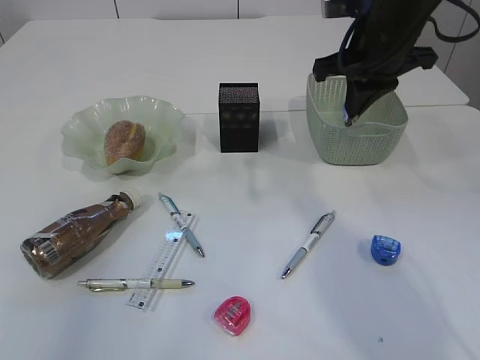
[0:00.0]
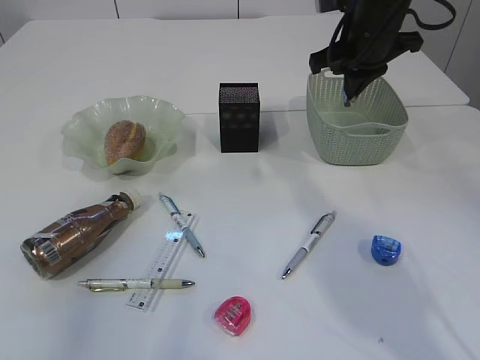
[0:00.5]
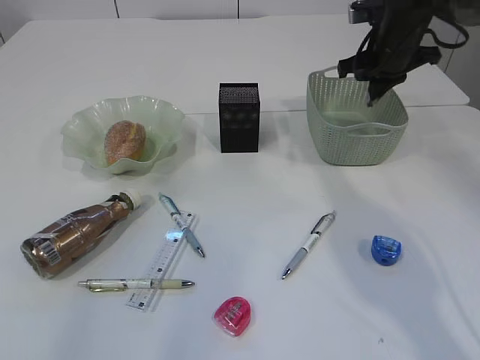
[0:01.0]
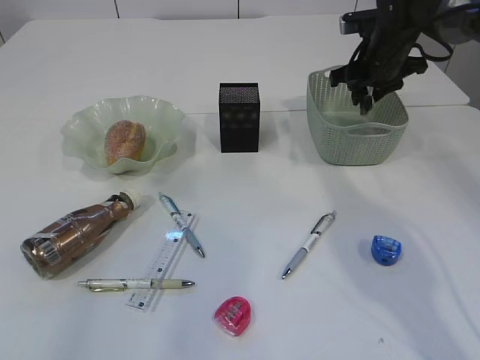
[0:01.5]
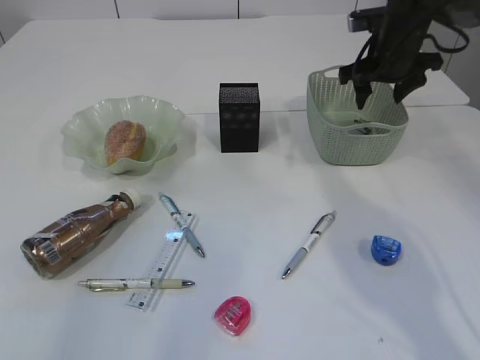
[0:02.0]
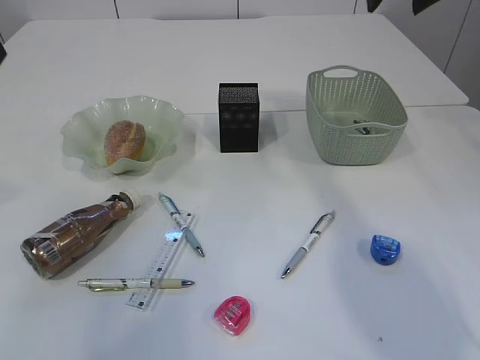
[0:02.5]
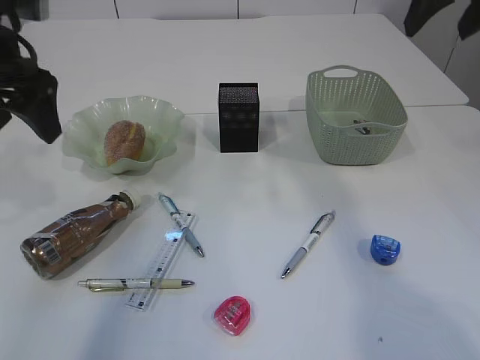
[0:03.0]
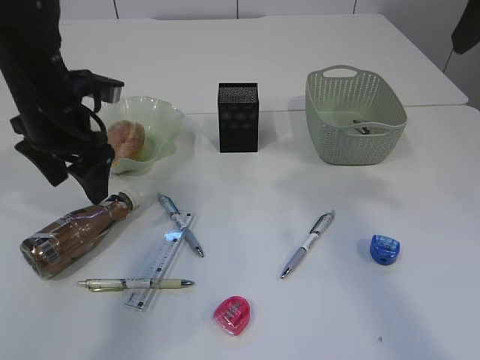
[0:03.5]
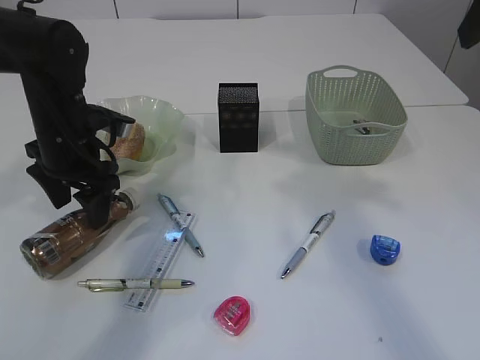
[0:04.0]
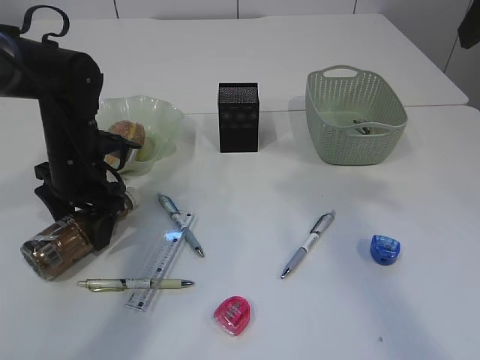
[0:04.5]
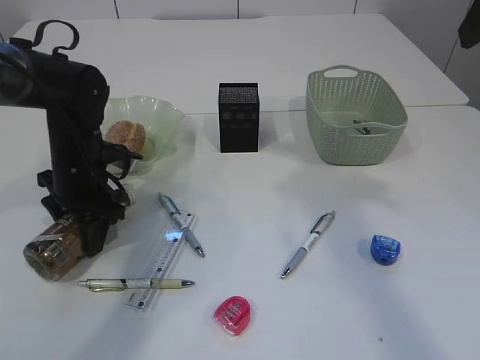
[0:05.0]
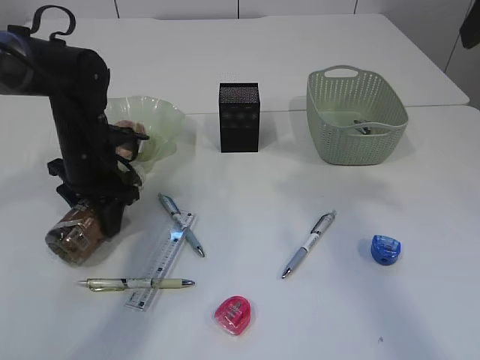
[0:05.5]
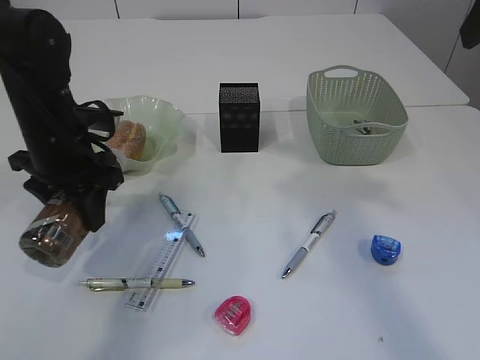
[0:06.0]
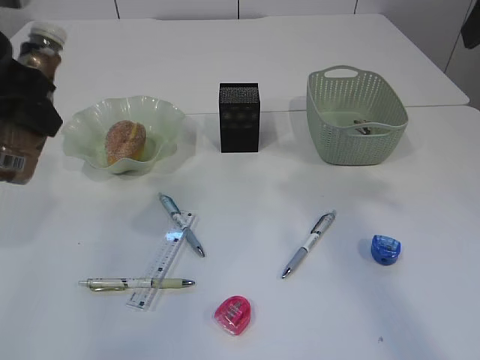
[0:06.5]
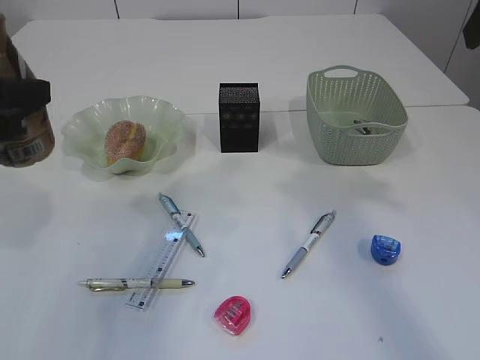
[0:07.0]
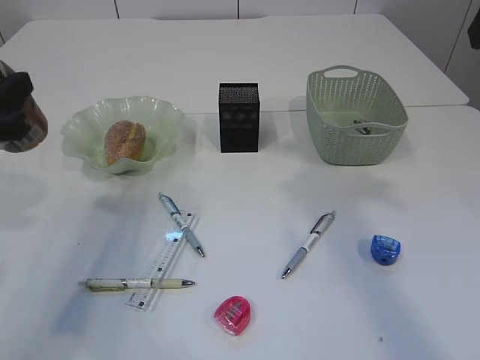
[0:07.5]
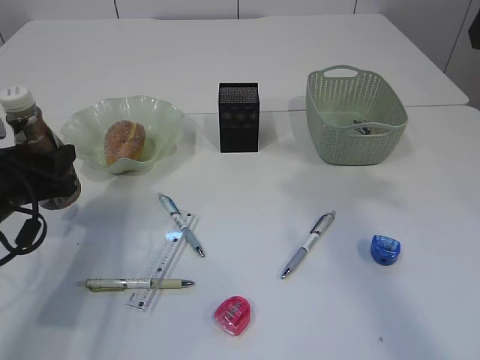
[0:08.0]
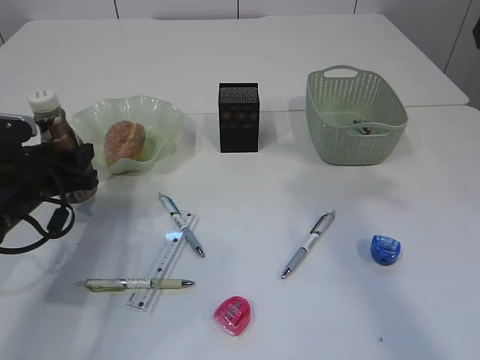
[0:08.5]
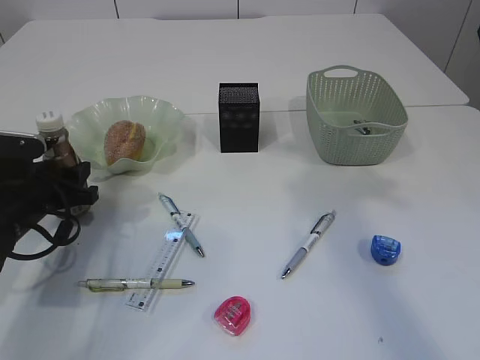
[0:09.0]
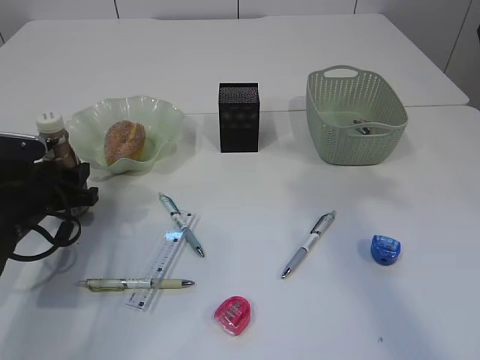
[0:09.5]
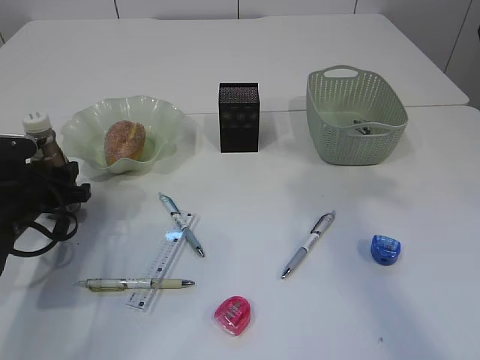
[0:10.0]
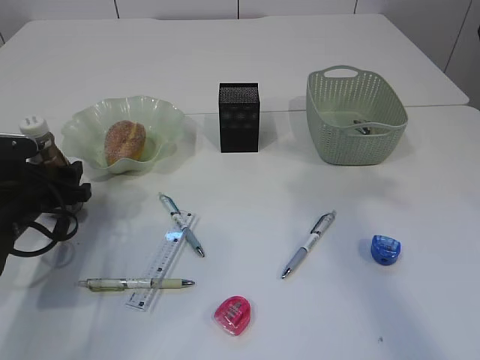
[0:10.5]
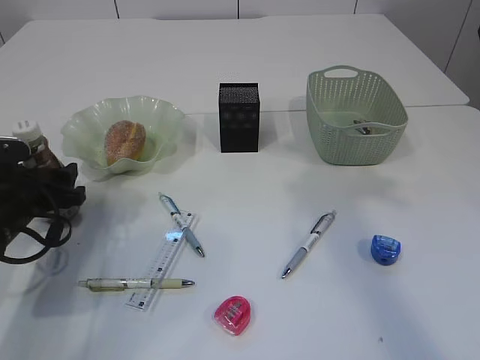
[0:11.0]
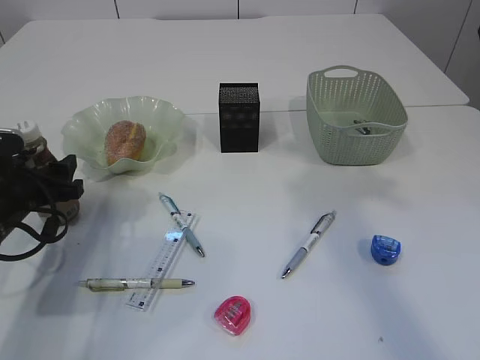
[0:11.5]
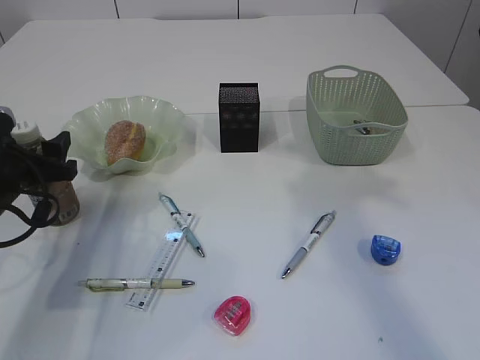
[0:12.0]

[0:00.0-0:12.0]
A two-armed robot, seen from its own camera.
Step, 0:00.0 to 0:02.0: Place the waste paper in the basket.
Step, 0:02.5 to 0:06.0: Pick up the bottle with the left arm.
0:00.0 to 0:02.0: The right gripper is displaced forward, downward and to the right by some 15 cm, and opens.
0:02.0 to 0:04.0: The left gripper moves downward and forward, roughly 35 cm, and opens up; the right gripper travels backward and upward by roughly 30 cm.
0:04.0 to 0:06.0: The left gripper closes its fingers.
0:06.0 to 0:08.0: The left gripper travels backward and to the left by roughly 10 cm, and reaches approximately 15 cm upward, then returns.
0:08.0 to 0:10.0: The left gripper goes about 5 cm downward.
0:10.0 to 0:12.0: The left gripper opens.

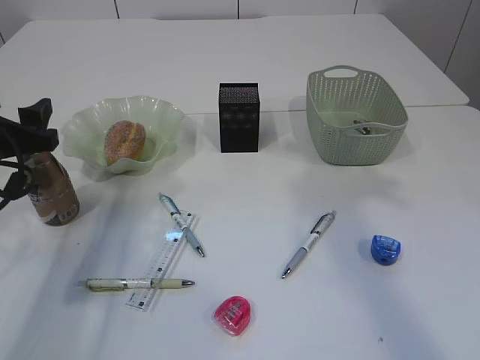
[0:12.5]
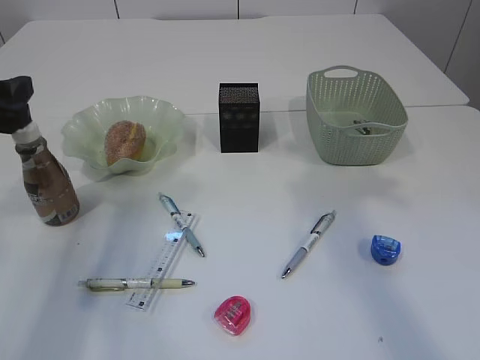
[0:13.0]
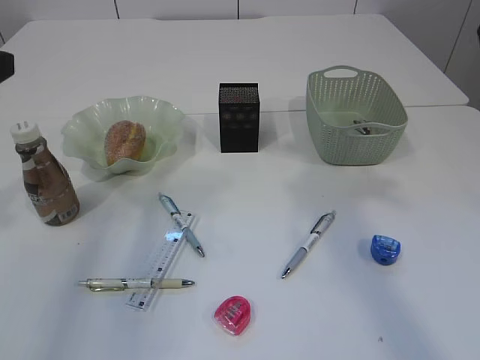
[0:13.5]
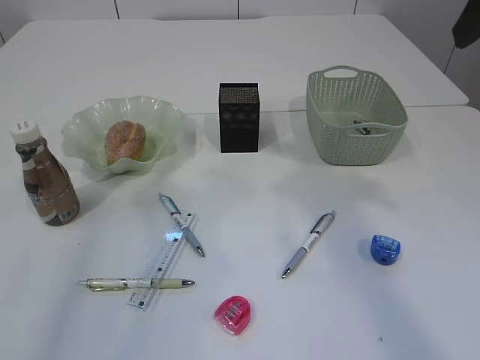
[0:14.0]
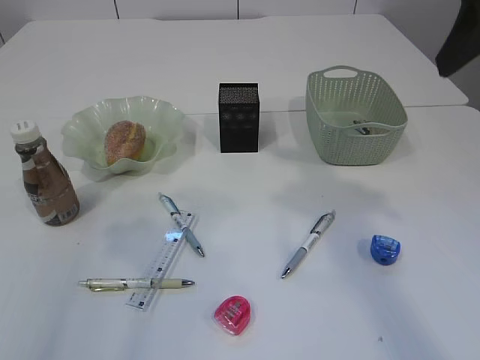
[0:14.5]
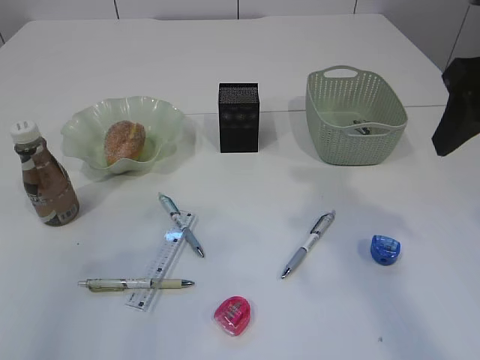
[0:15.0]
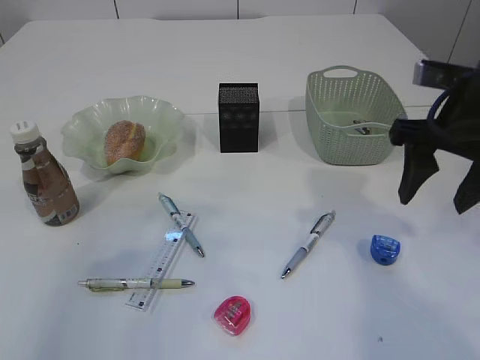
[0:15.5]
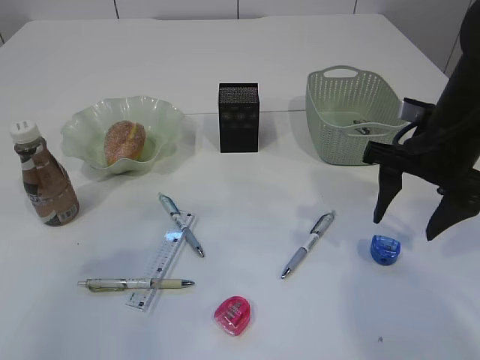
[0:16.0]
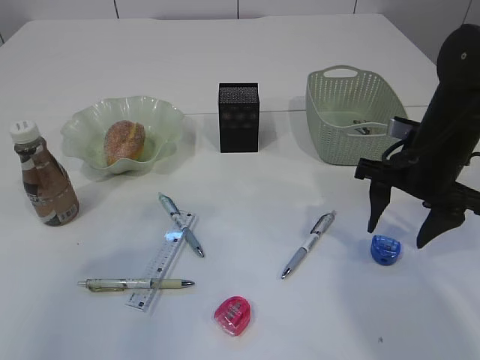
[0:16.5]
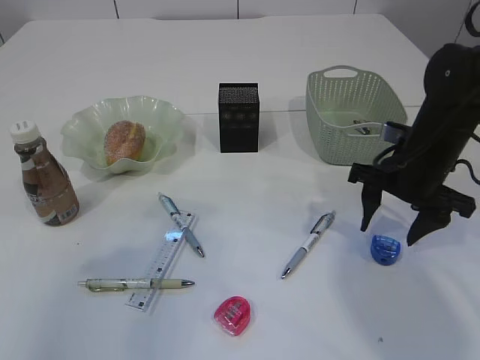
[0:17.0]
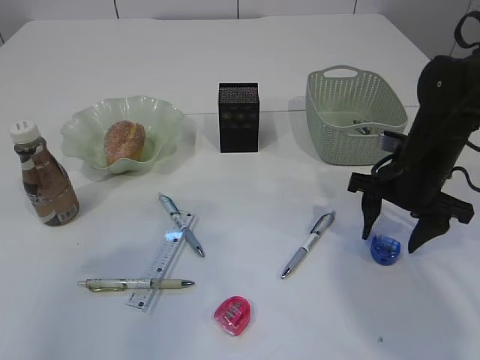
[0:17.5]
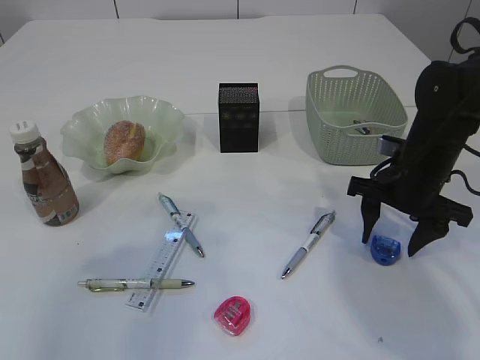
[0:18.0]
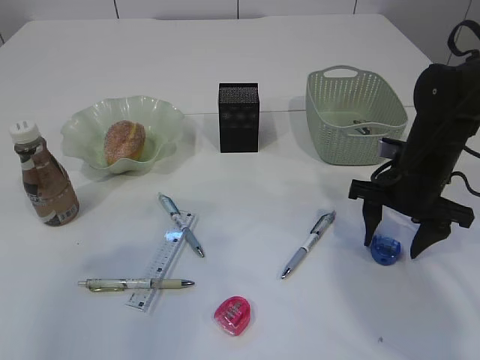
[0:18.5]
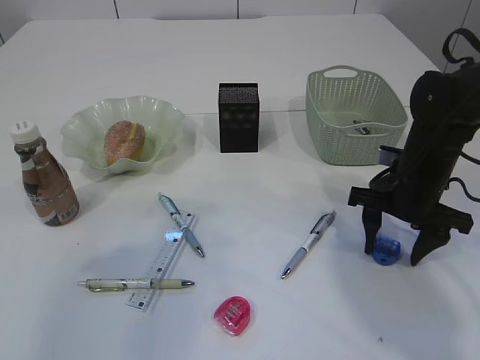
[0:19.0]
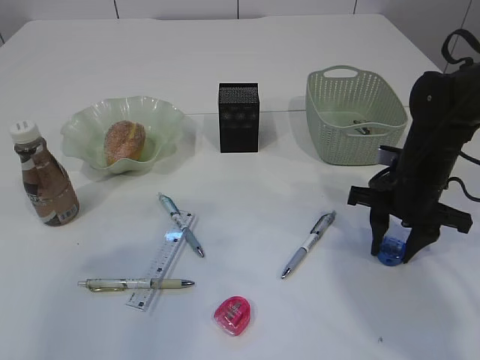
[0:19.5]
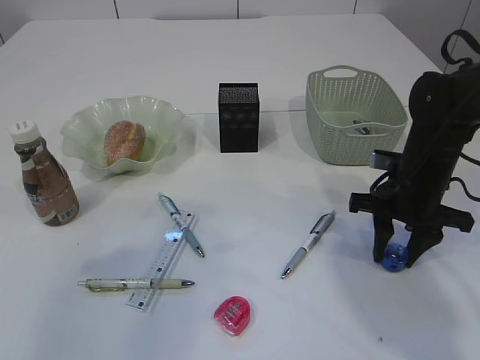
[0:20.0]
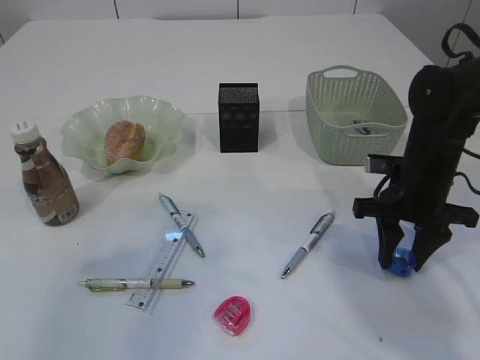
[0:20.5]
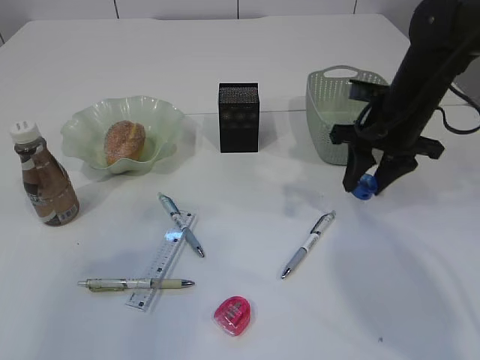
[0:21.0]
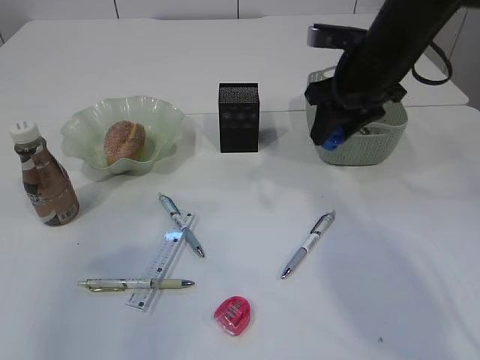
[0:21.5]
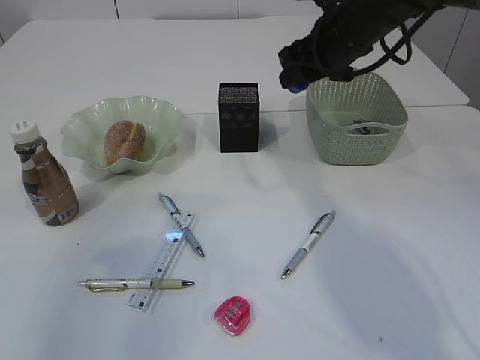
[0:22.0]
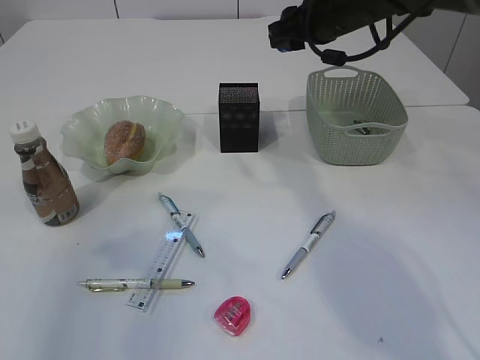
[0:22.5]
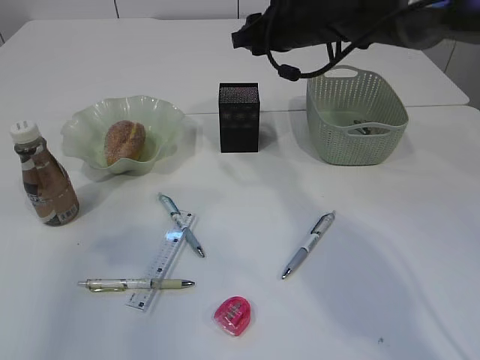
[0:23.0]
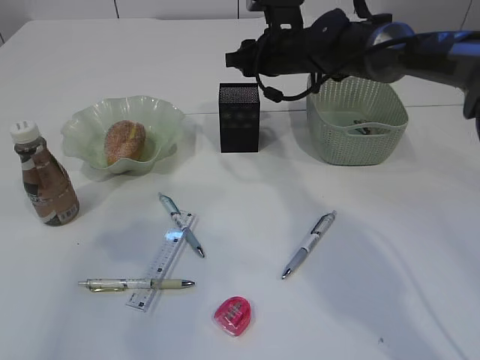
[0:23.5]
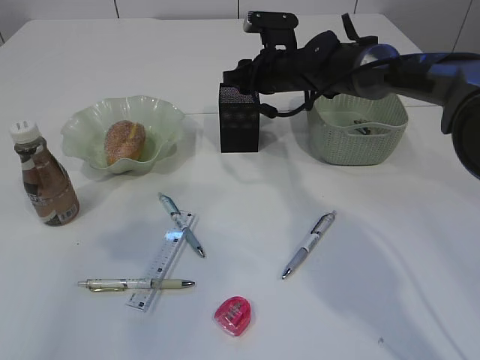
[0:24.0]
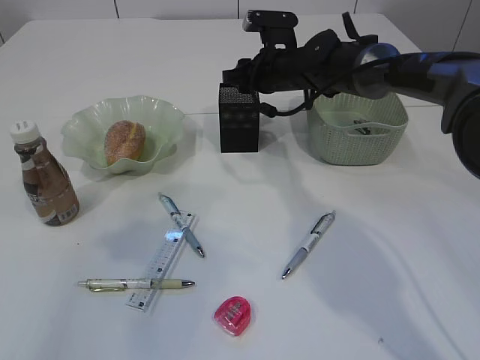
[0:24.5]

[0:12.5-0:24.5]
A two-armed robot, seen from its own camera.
Step, 0:13.5 to 0:20.5: Pick up the blue pencil sharpener.
0:12.5 to 0:14.5: The left gripper moves upward and backward, some 20 cm.
0:14.5 to 0:16.5: The right gripper travels downward by some 20 cm.
0:16.5 to 0:18.5: There are only small adjustments of the grippers.
0:18.5 to 0:20.5: The right gripper closes.
0:20.5 to 0:22.5: The right gripper moves upward, forward and to the left, approximately 20 cm.
0:22.5 to 0:24.5: The right gripper is displaced downward, forward and to the left by some 15 cm.

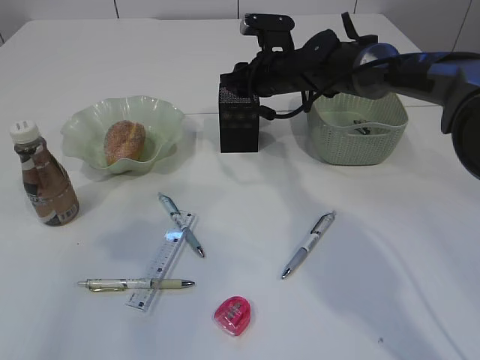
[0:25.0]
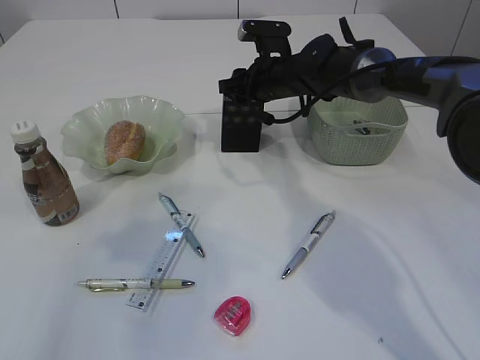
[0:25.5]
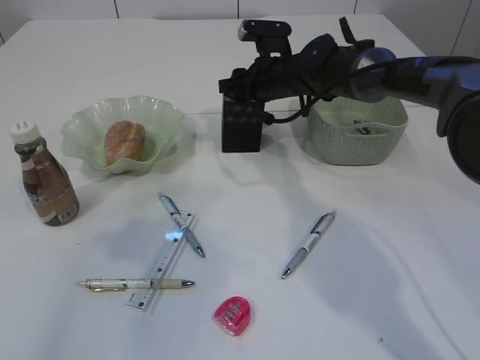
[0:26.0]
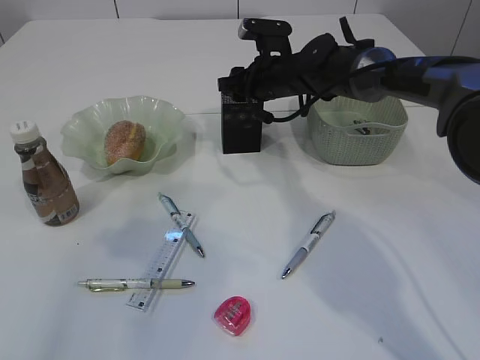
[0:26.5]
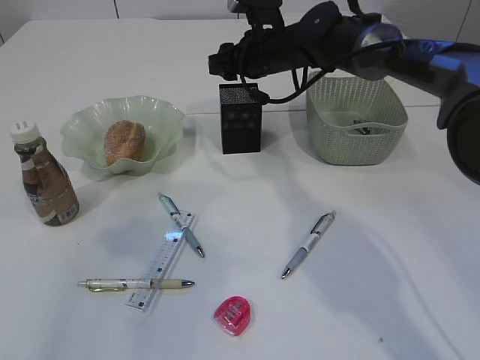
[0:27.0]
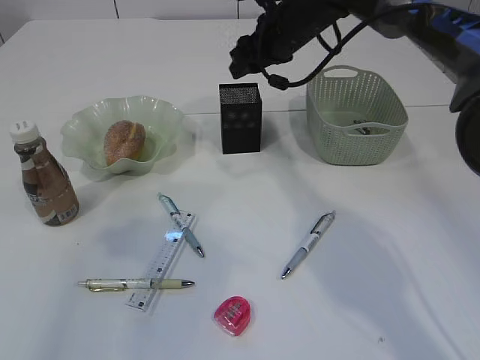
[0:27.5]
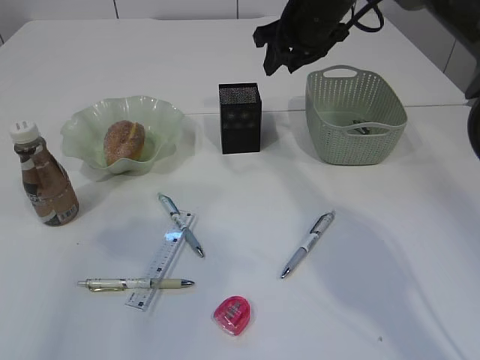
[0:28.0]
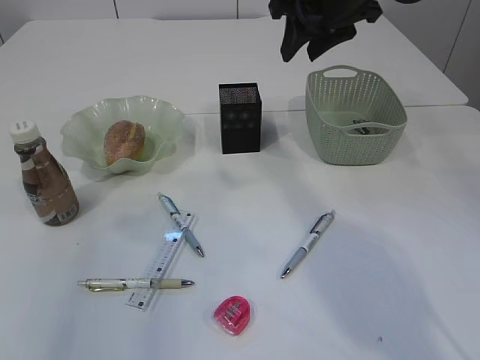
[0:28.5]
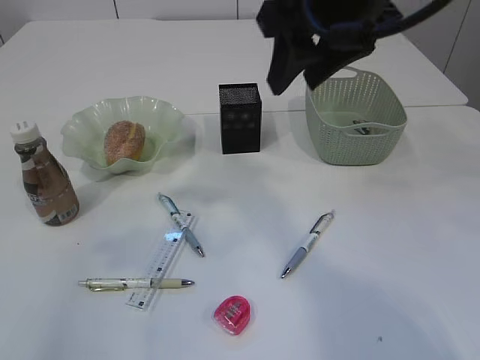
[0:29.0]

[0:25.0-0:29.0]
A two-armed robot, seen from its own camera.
Step, 0:25.0 to 0:27.0: Place the blue pencil sharpener into the pen holder.
0:25.0 to 0:27.0: The grippers move only a little.
0:27.0 to 0:29.0: The right gripper is displaced backward and upward by some 25 cm.
